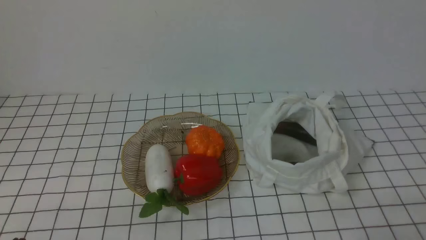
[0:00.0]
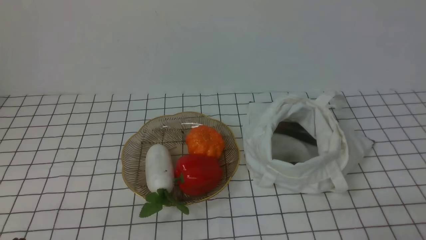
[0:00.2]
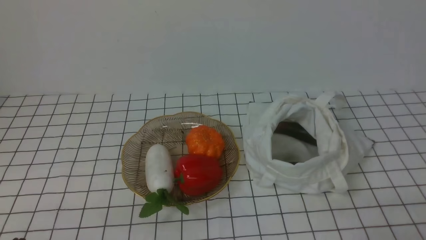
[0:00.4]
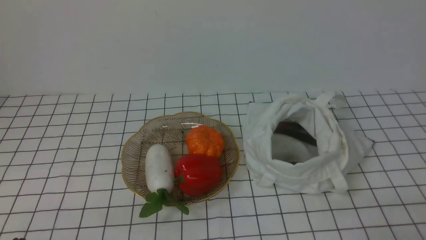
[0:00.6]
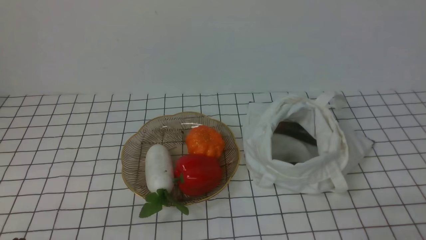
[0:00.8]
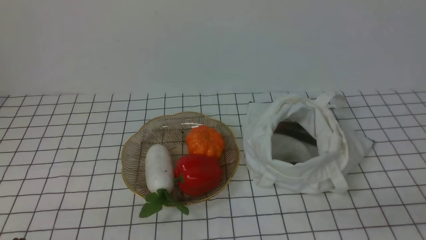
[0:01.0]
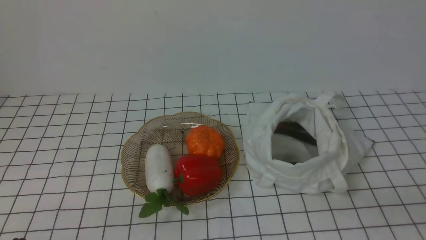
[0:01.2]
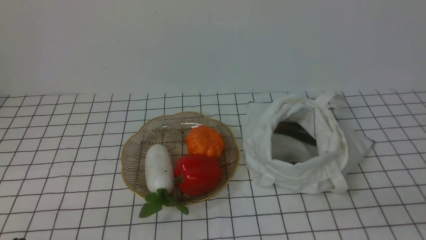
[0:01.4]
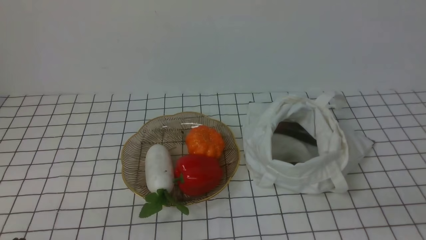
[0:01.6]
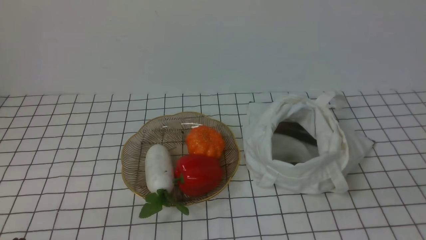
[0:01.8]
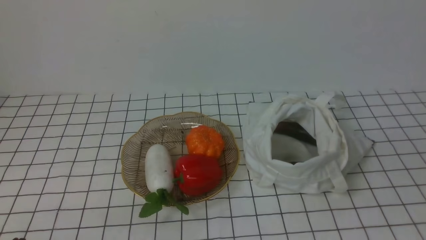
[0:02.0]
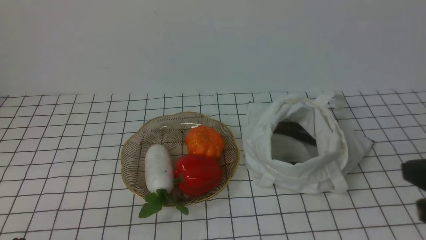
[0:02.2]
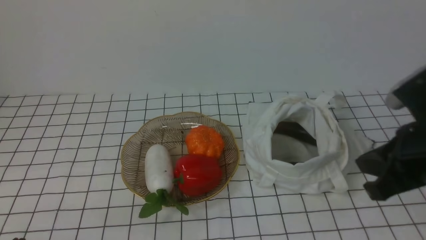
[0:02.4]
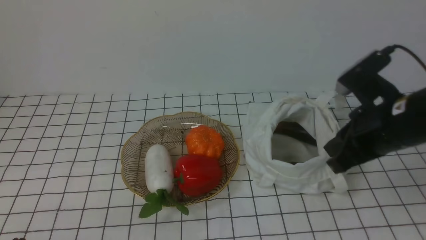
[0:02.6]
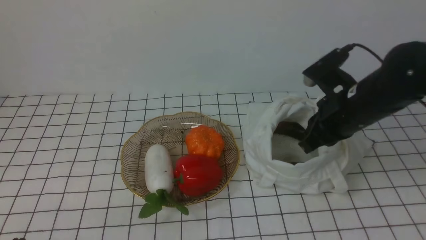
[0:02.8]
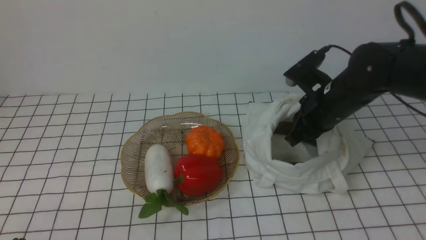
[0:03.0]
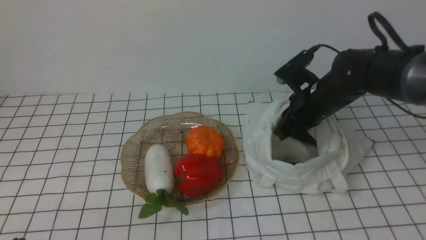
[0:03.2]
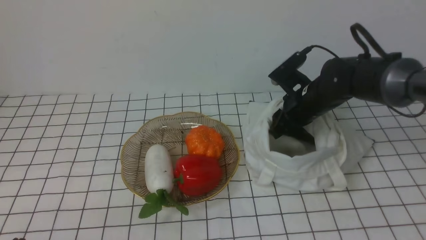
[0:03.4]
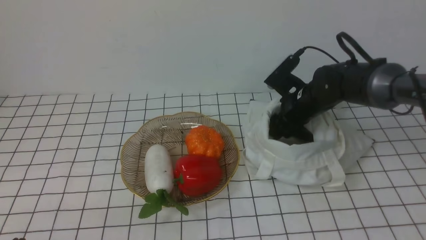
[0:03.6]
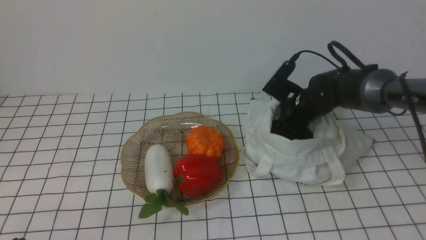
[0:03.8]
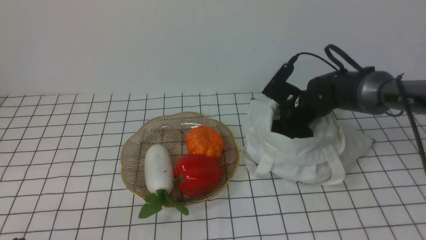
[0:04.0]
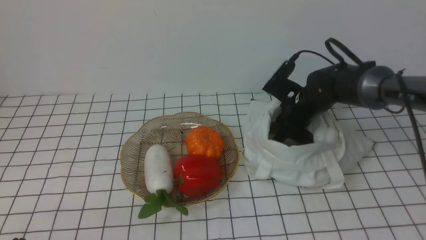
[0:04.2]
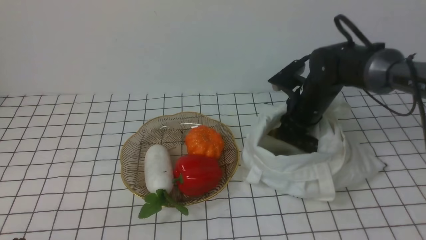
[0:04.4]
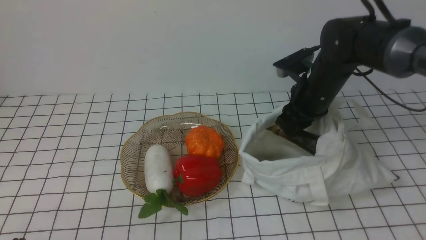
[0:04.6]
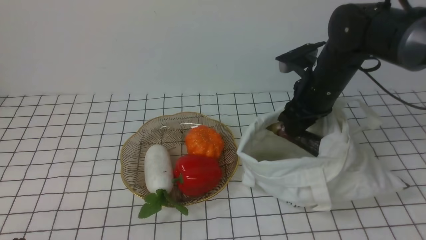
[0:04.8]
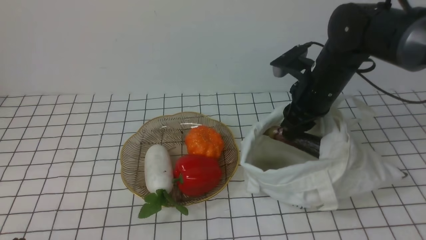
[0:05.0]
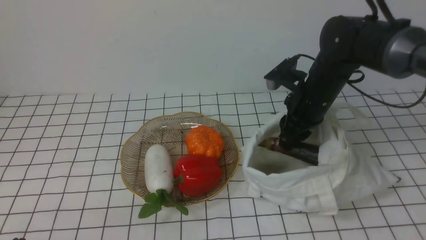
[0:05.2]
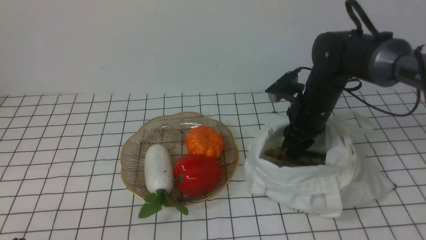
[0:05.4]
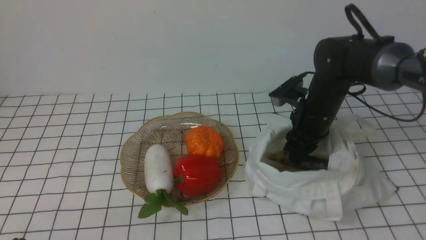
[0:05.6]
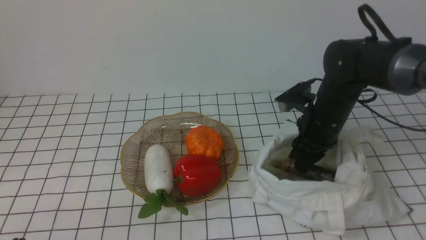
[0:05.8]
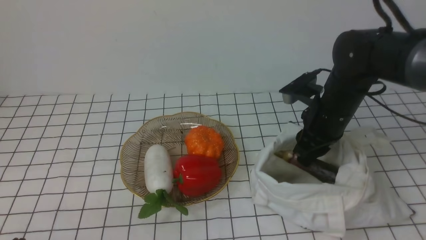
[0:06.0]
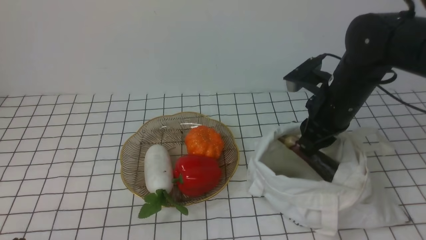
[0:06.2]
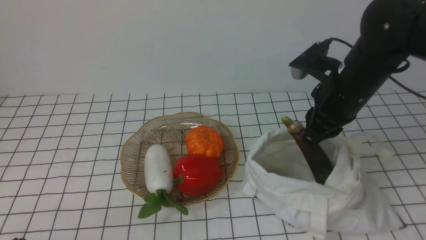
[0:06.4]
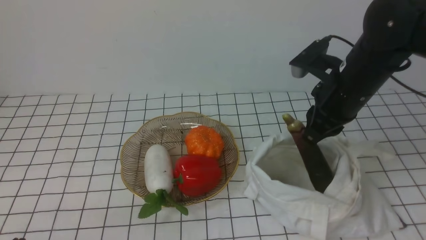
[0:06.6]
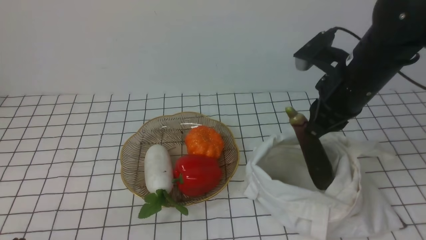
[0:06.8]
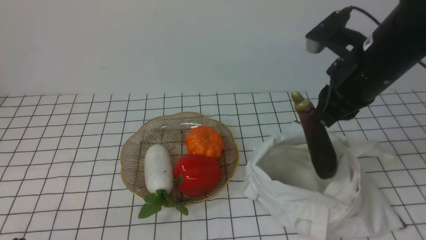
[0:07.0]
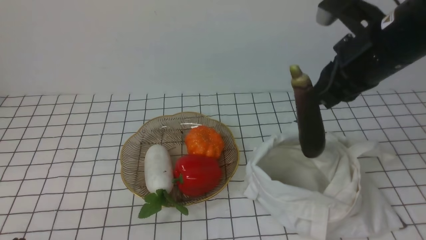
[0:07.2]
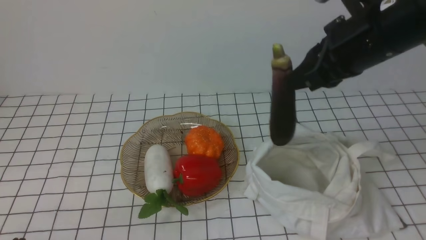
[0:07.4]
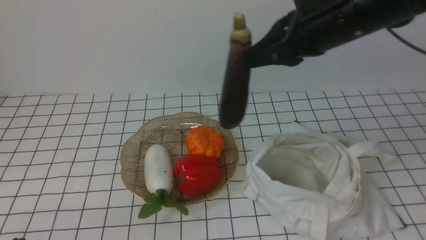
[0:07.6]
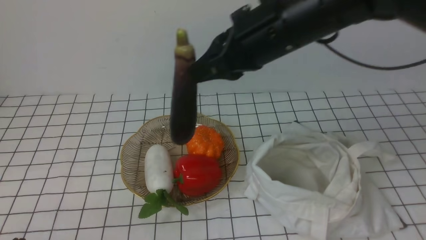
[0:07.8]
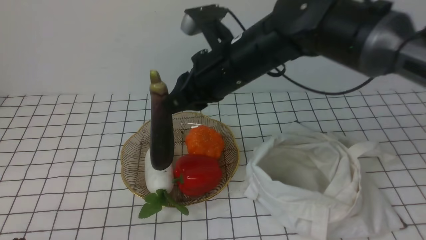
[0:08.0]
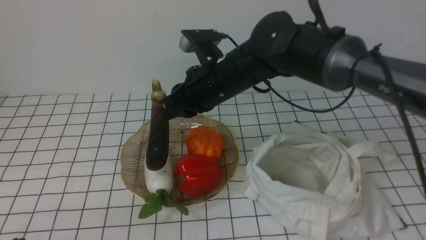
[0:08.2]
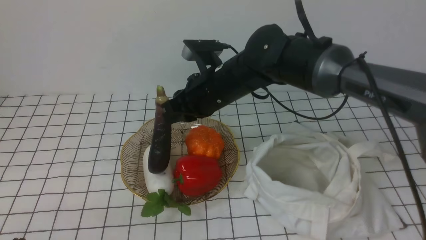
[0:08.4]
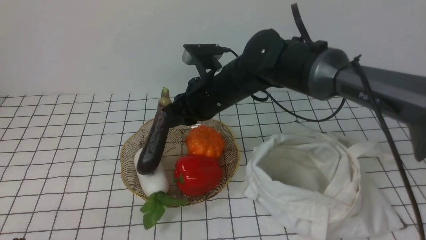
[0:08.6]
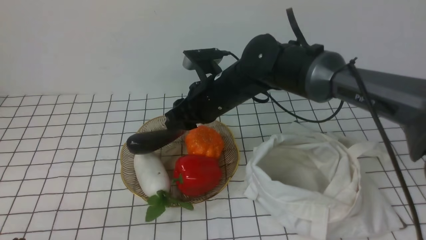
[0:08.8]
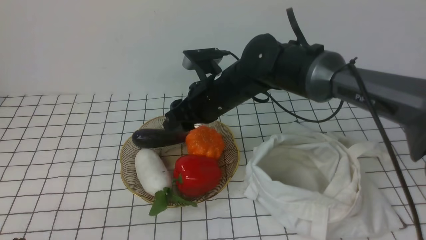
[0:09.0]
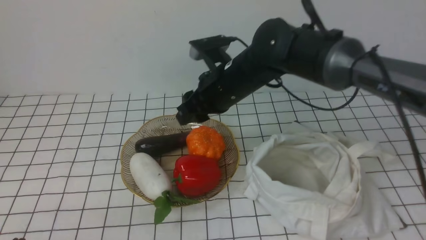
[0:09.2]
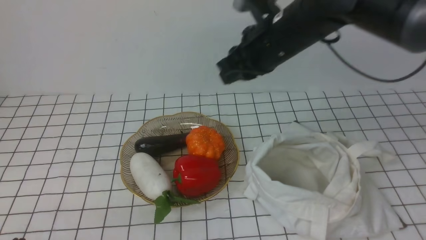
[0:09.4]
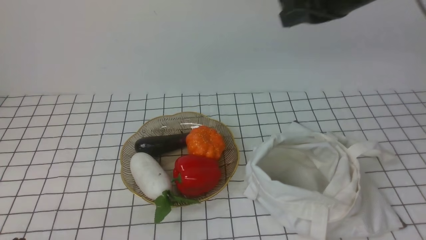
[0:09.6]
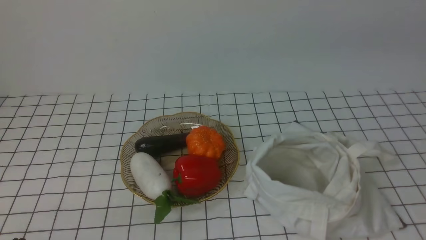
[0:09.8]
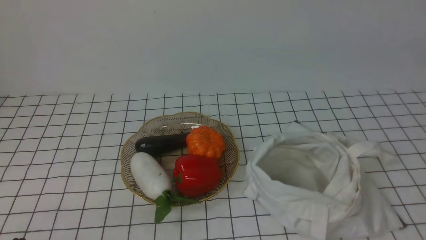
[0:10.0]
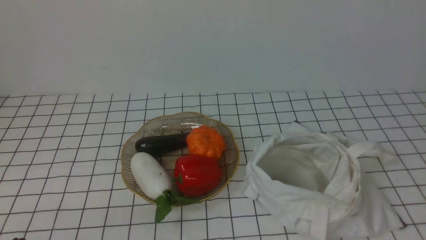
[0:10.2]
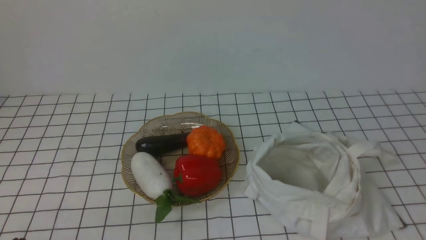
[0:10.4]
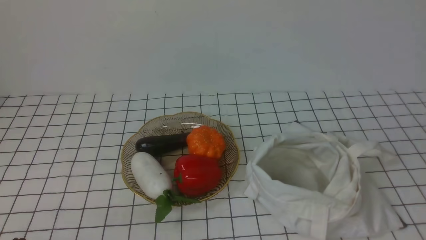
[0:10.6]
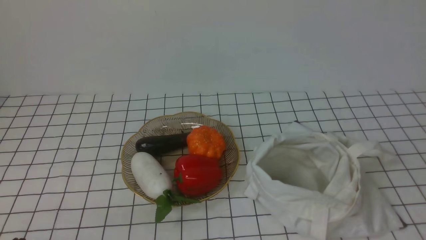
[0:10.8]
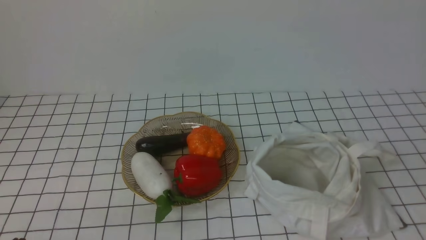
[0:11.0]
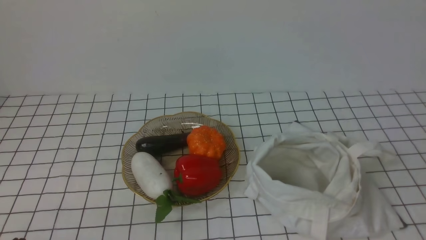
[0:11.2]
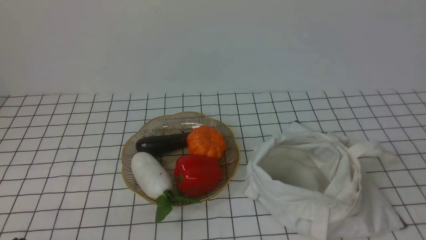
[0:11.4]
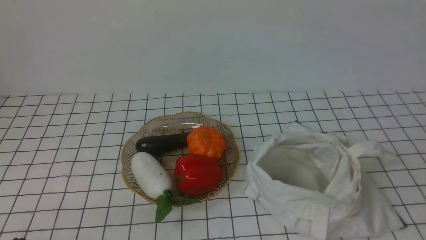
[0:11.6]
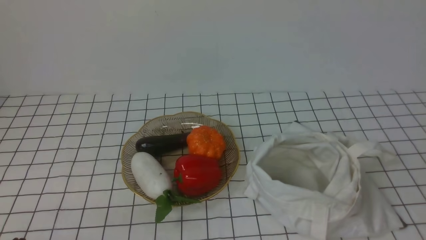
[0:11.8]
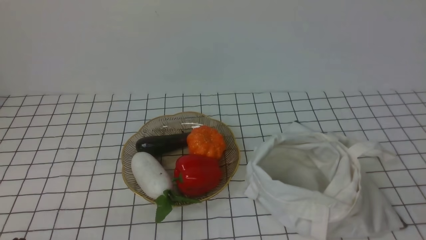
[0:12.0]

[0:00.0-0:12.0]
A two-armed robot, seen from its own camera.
Task of the whole recording: take vegetables from bag on white checkered tablecloth place on plate.
Step, 0:00.0 to 0:04.0: Grasp the eggplant with right gripper.
Step, 0:04.2 to 0:09.0: Place the eggplant on the plate with right gripper.
0:01.6 to 0:03.0: The right gripper shifts roughly 35 cm forward and to the left.
0:03.0 to 0:04.4: The right gripper travels forward by roughly 5 cm, and opens its fingers.
0:04.4 to 0:06.0: The right gripper heads backward, covering about 5 cm.
0:06.0 to 0:07.6: The right gripper moves upward, approximately 15 cm.
0:07.6 to 0:09.0: The right gripper goes roughly 20 cm downward, to the left and forward, and opens up.
0:09.0 to 0:10.4: The right gripper moves backward, to the right and upward, some 50 cm, and closes up.

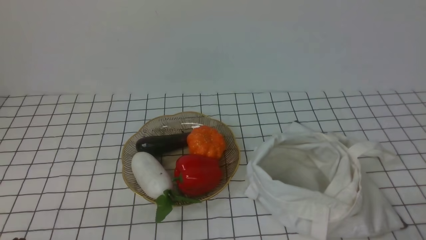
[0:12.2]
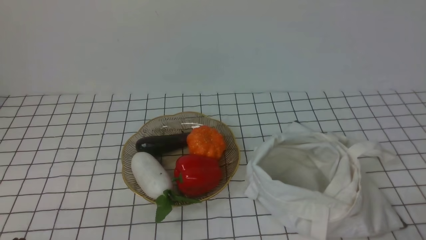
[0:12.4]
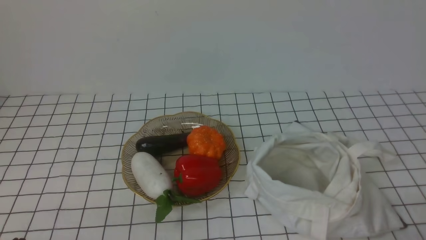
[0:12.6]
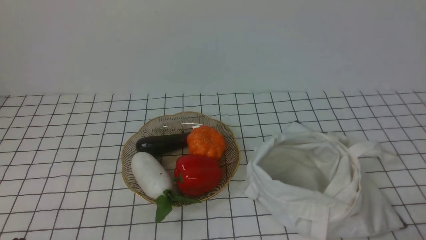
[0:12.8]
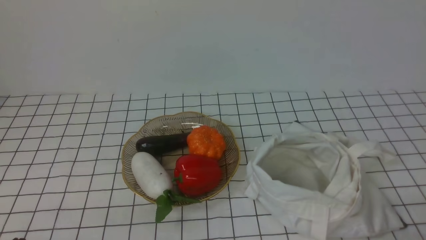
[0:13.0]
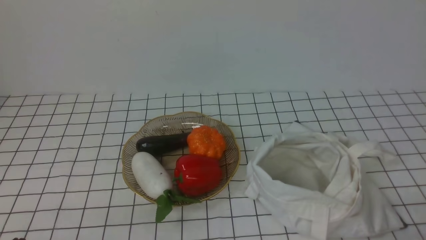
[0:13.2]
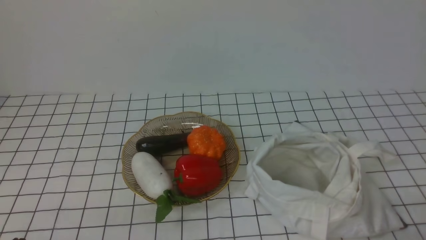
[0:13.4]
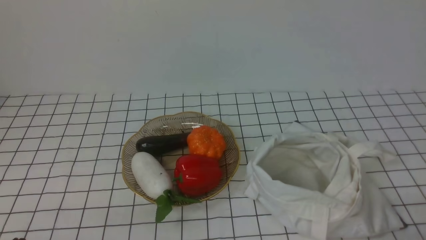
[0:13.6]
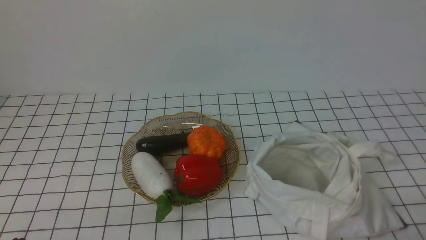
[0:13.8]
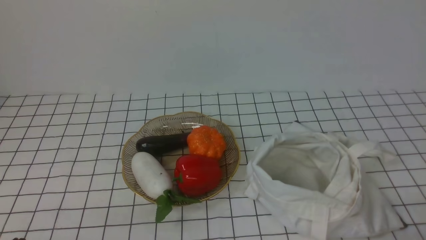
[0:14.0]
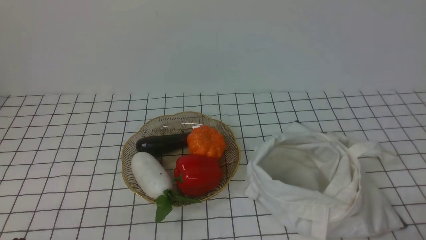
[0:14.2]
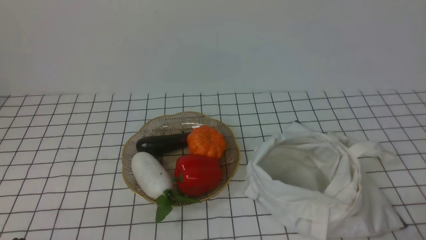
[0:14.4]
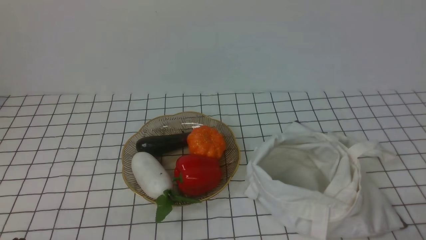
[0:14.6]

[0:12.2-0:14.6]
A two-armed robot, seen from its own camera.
Task of the whole recording: take vegetables from bag on white checkered tablecloth place on plate.
0:12.2 to 0:14.6: Both grippers stay about where they are.
